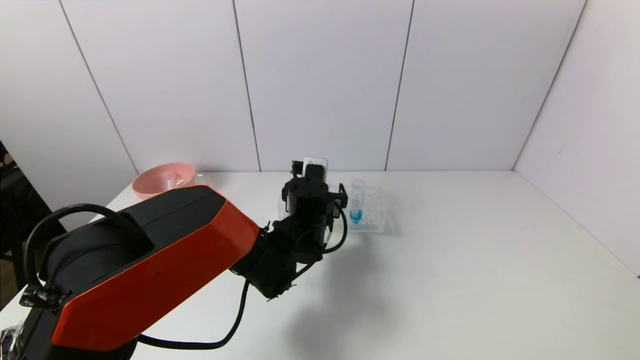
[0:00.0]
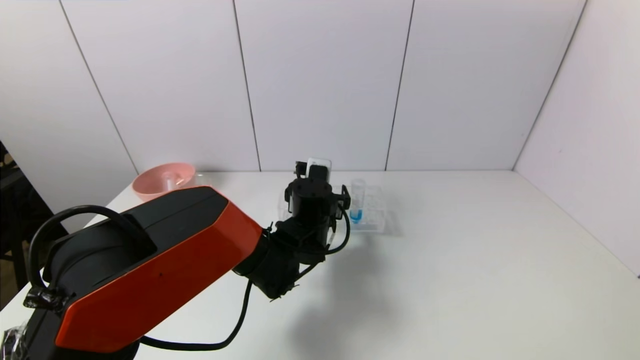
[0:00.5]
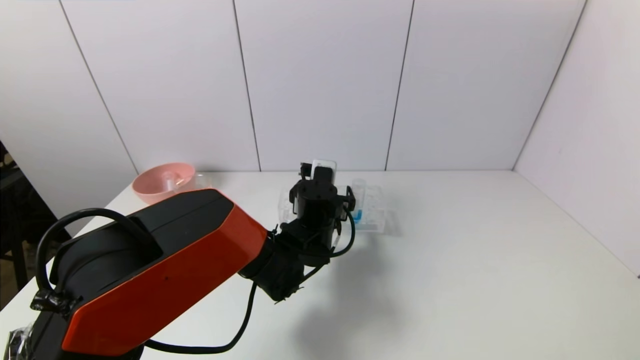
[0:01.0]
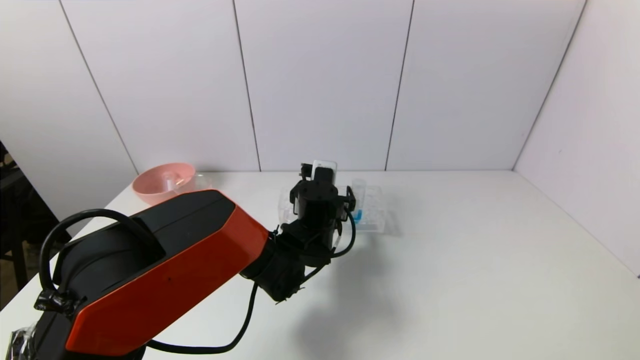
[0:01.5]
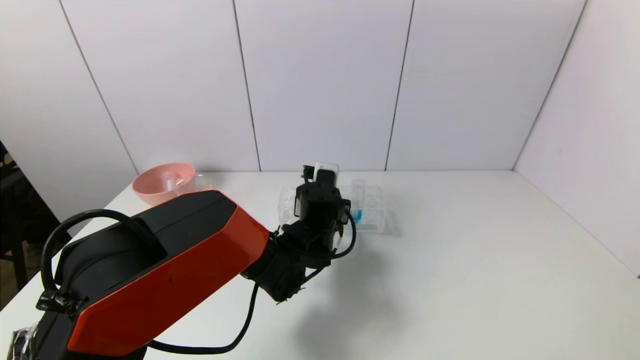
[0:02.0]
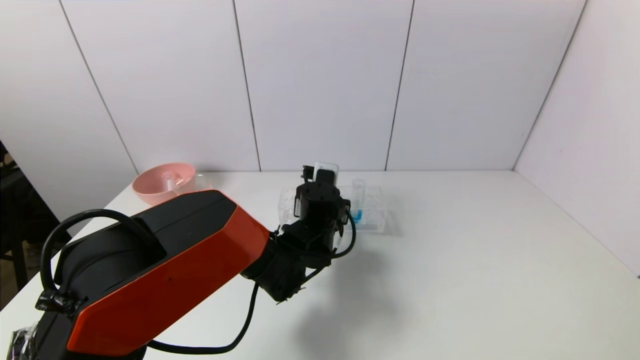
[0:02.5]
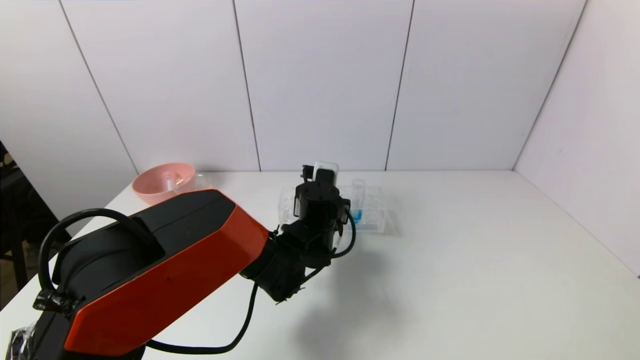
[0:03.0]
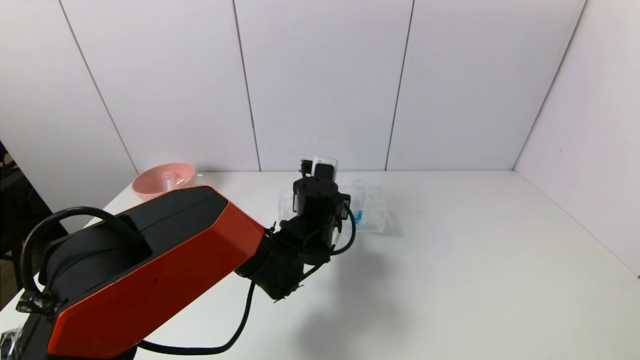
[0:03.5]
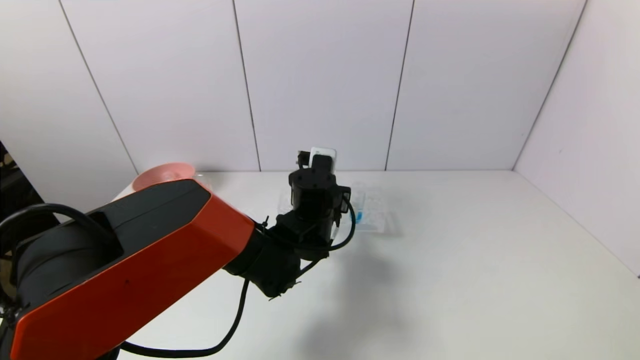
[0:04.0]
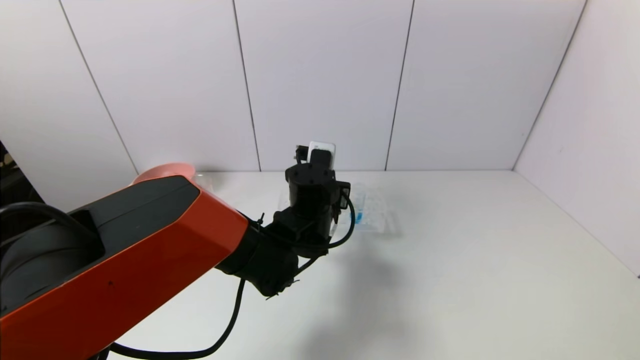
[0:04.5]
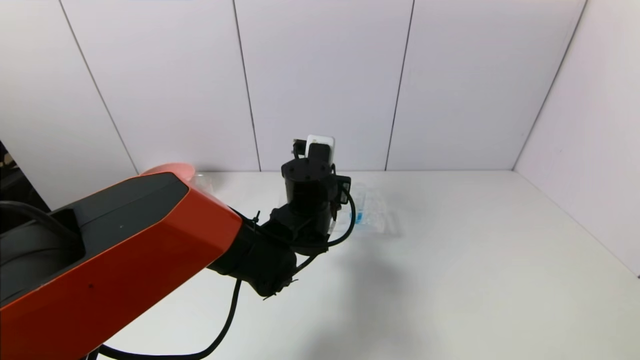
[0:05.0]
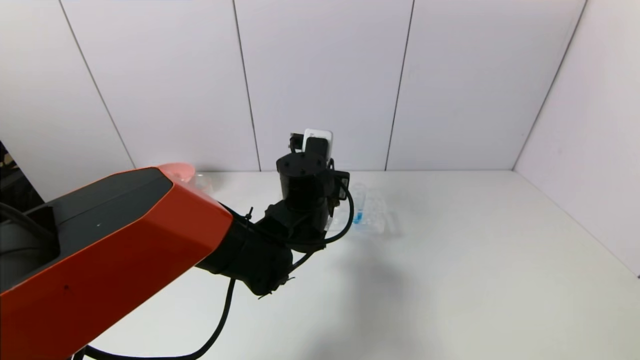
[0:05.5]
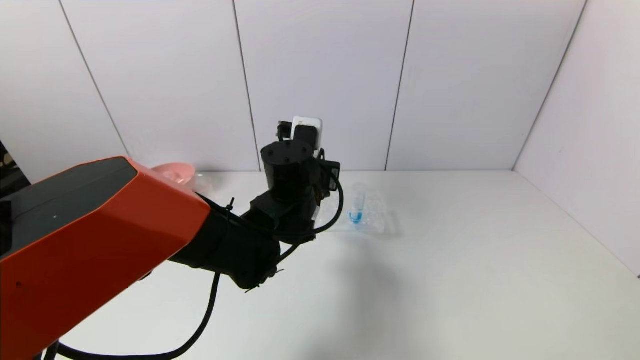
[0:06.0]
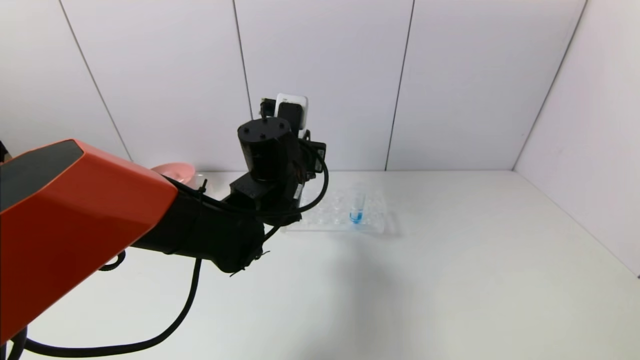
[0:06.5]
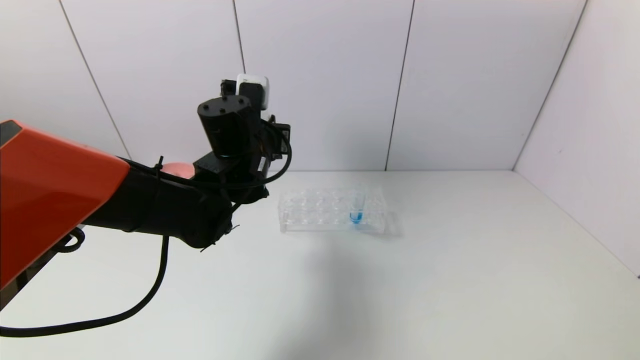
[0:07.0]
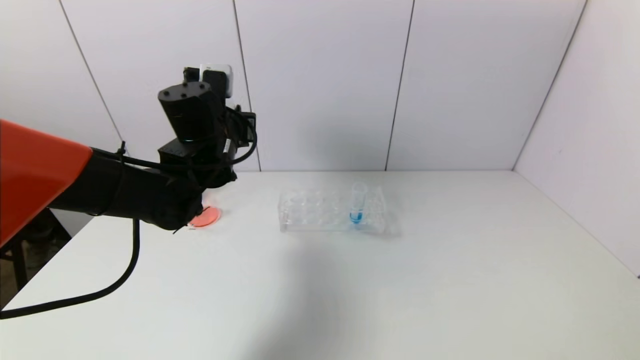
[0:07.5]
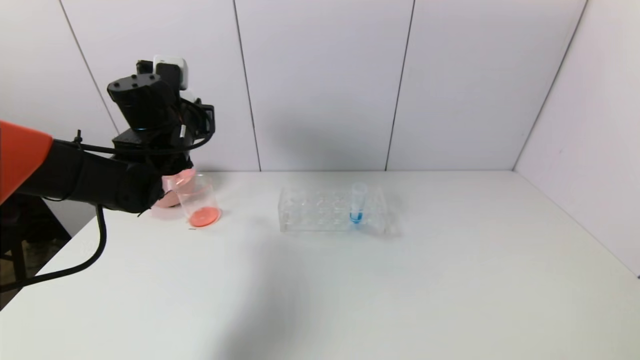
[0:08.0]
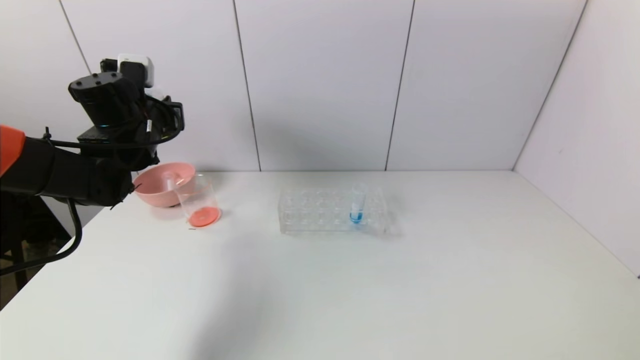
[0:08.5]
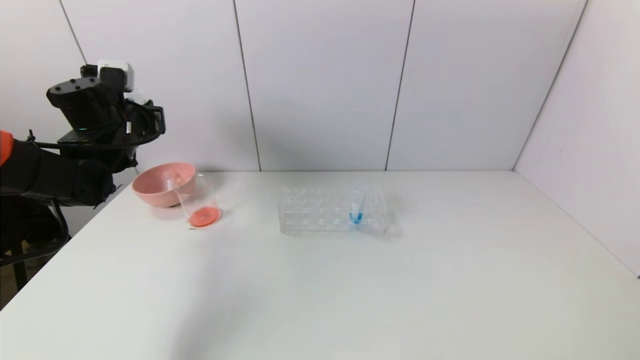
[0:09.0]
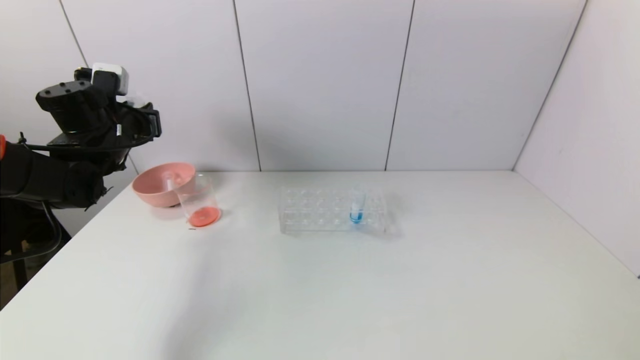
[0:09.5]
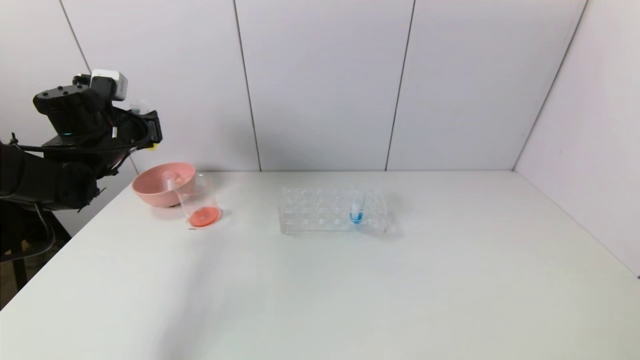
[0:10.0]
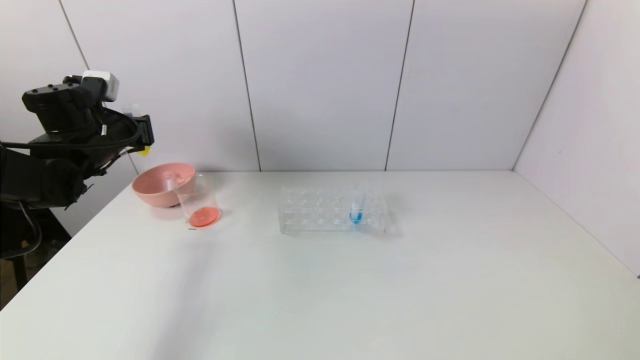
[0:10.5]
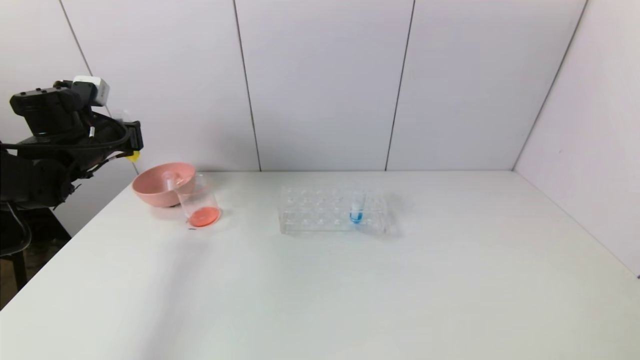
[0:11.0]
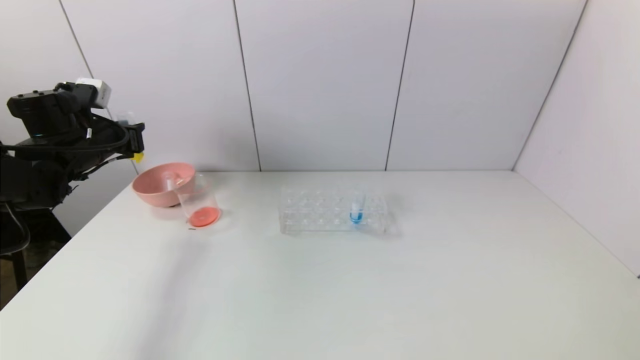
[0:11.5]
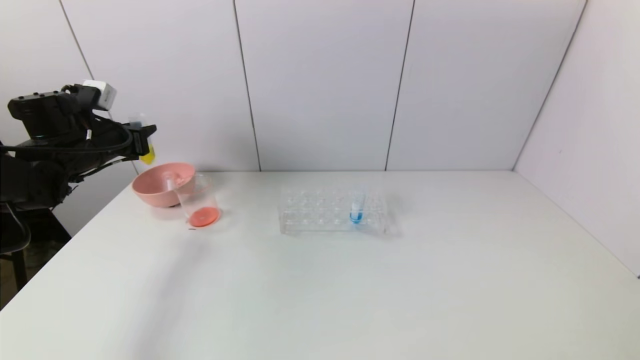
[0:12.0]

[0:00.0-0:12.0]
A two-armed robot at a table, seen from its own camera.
Task of the whole recording: pick up the test tube with yellow pigment and the test tube with red pigment by grippers and pour them into the beaker.
Step, 0:00.0 to 0:02.0: Grasp the yellow reagent with the left gripper.
0:00.0 to 0:02.0: The left gripper closes up.
0:02.0 to 0:04.0: There are only small adjustments of the grippers.
0:04.0 to 0:06.0: The left gripper is displaced upward by approximately 5 cm.
0:06.0 to 0:08.0: The left gripper travels to the left by about 20 cm.
0:08.0 to 0:10.0: The left gripper goes about 10 cm to the left.
0:10.0 to 0:12.0: The grippers move only a little.

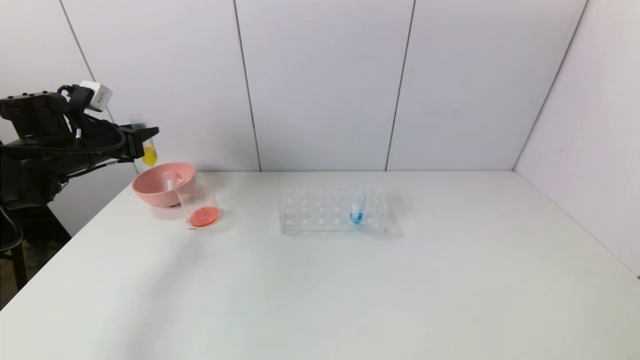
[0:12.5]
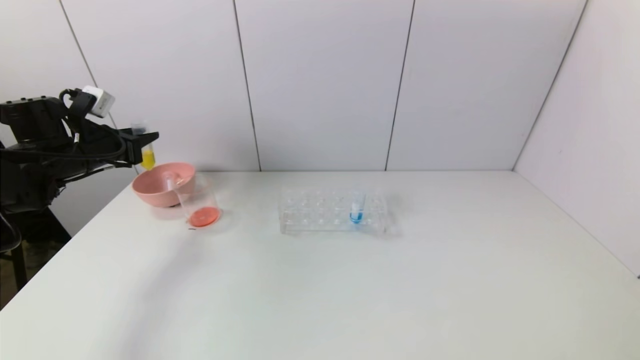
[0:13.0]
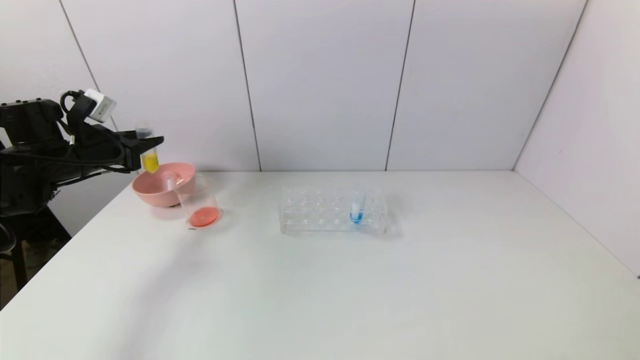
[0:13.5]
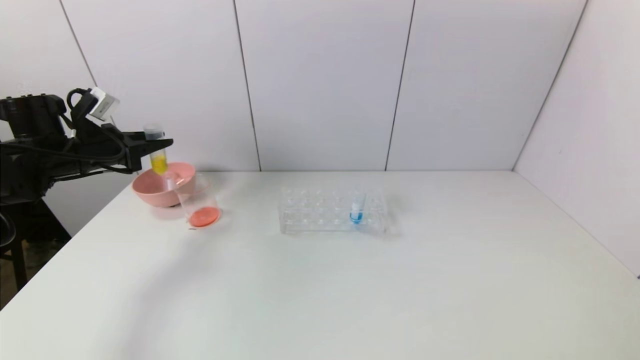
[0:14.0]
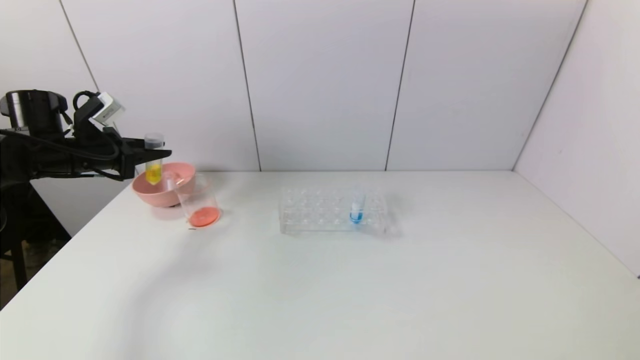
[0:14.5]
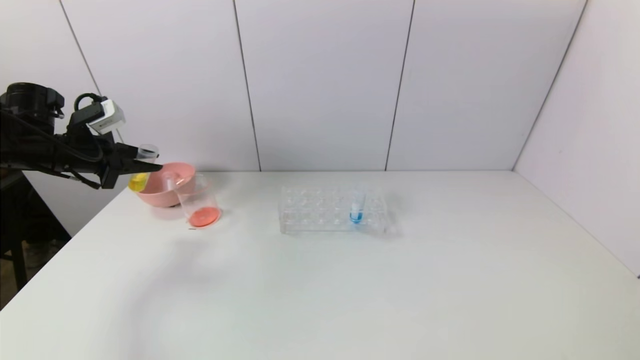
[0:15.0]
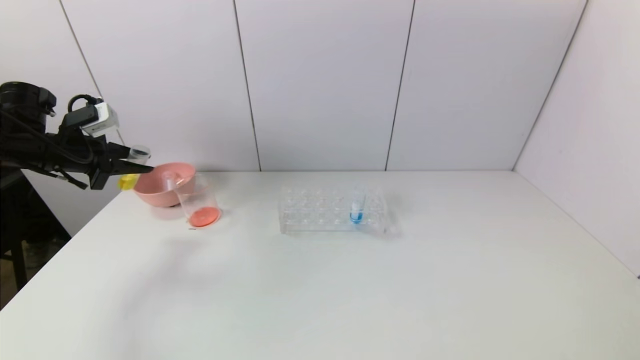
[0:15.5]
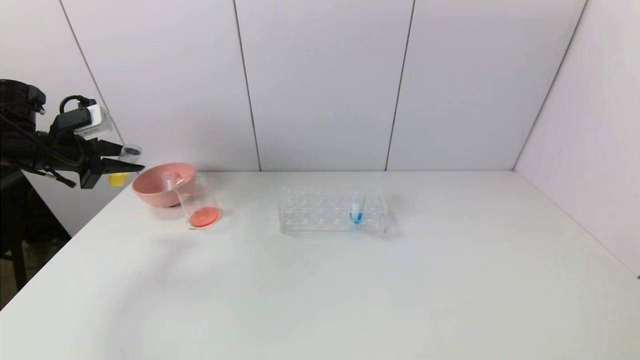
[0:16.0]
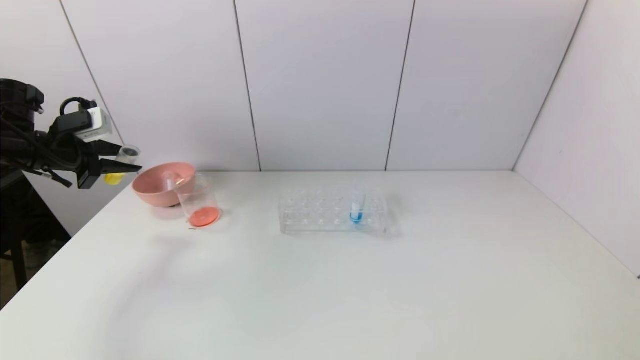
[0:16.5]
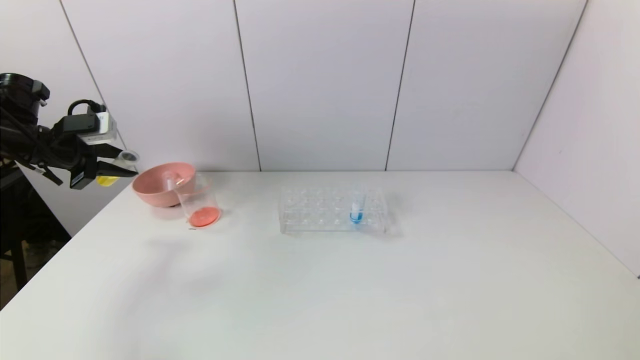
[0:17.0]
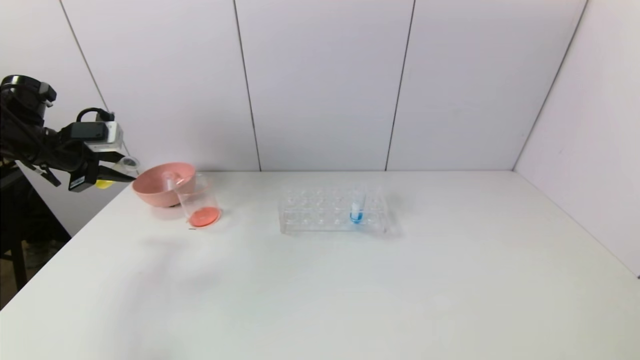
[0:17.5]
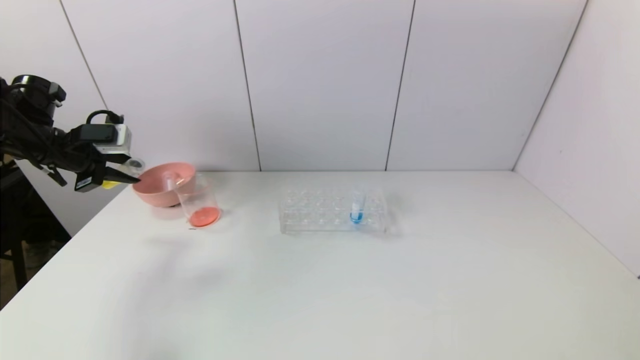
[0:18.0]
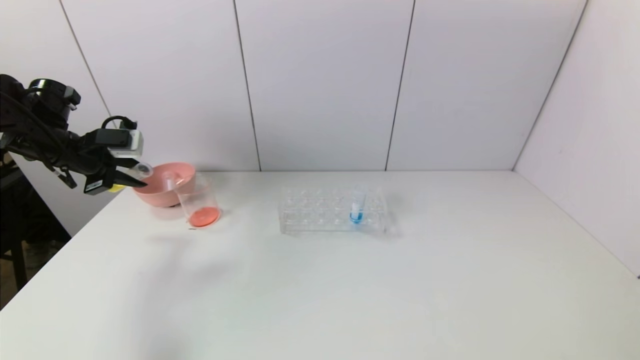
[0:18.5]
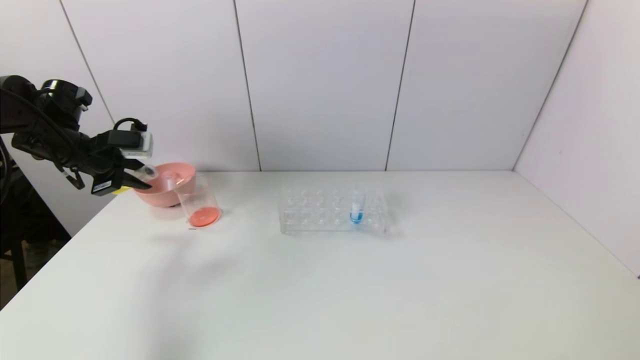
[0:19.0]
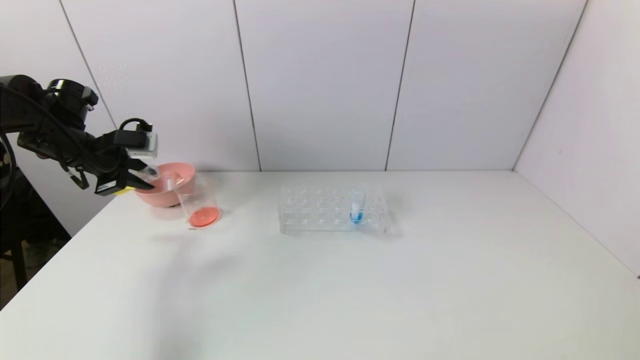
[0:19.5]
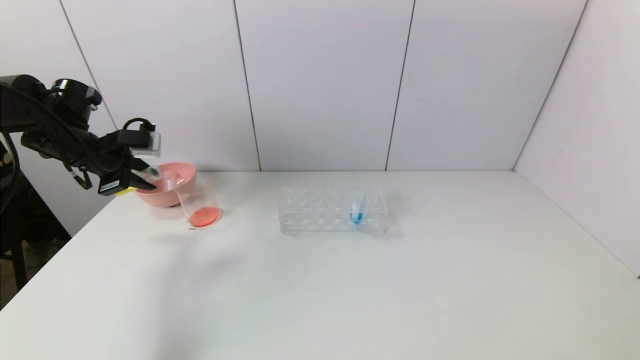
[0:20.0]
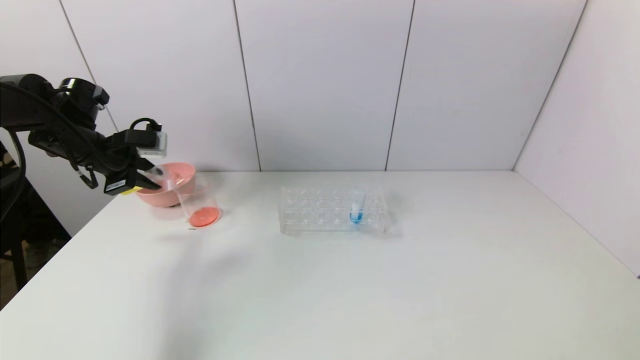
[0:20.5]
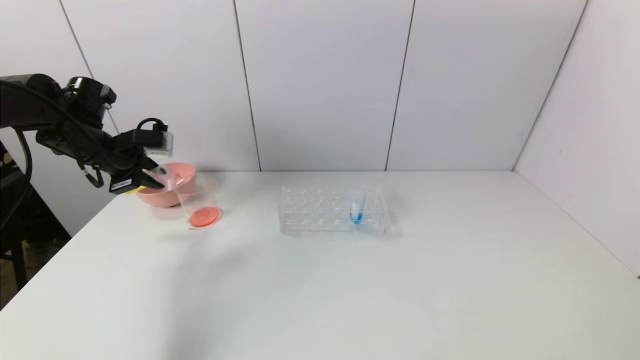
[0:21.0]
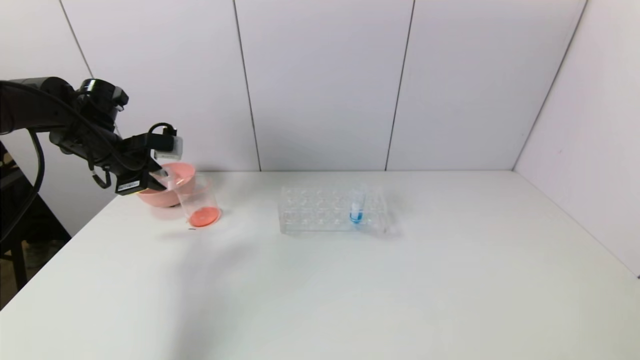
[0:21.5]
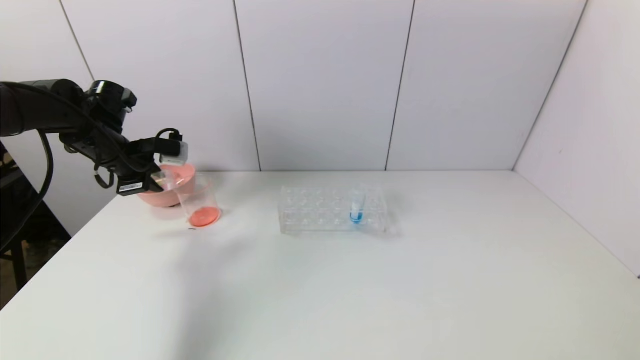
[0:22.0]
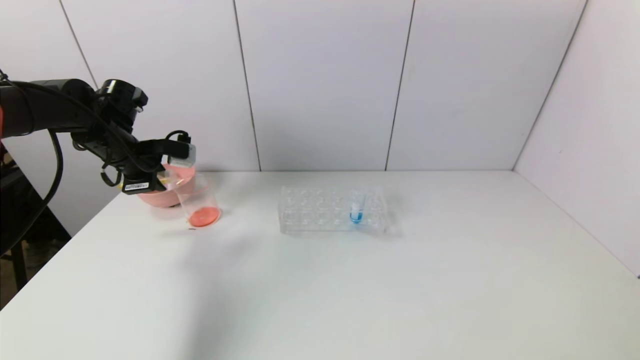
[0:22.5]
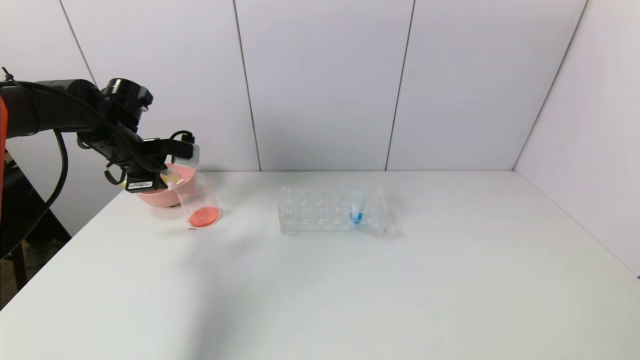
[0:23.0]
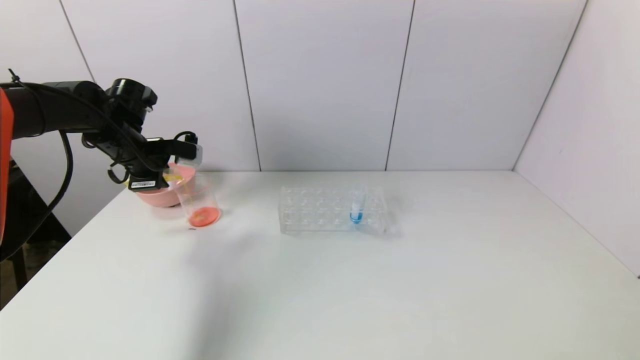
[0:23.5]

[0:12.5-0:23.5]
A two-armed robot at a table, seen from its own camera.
Task of the whole recording: pick up the test tube with yellow pigment and the test tube with red pigment by grippers and pour them into the beaker.
0:18.0 to 0:20.0: The grippers move only a little.
0:20.0 to 0:21.5: The grippers make only small movements.
0:21.5 to 0:23.5: The grippers stay close to where they were, moving slightly.
